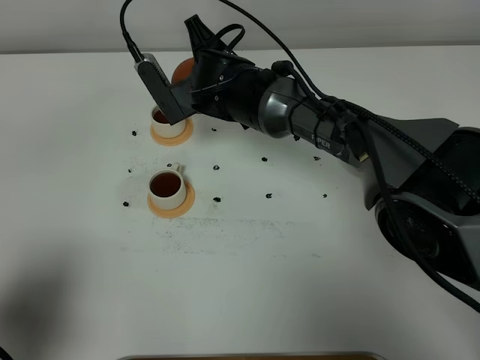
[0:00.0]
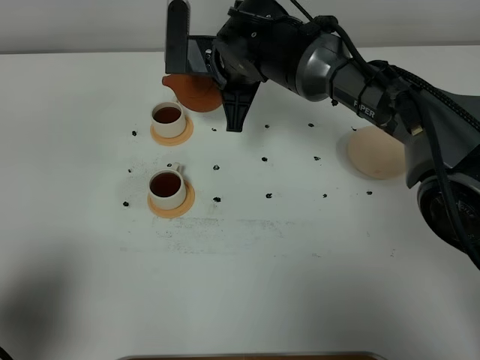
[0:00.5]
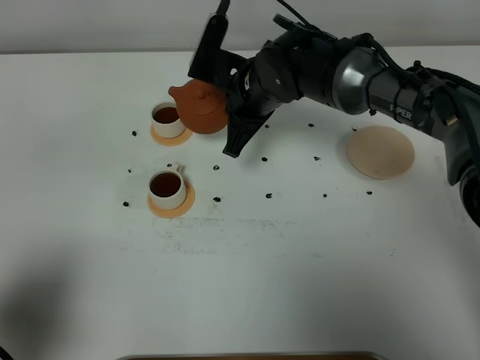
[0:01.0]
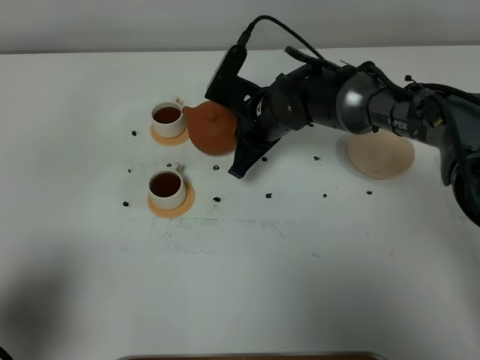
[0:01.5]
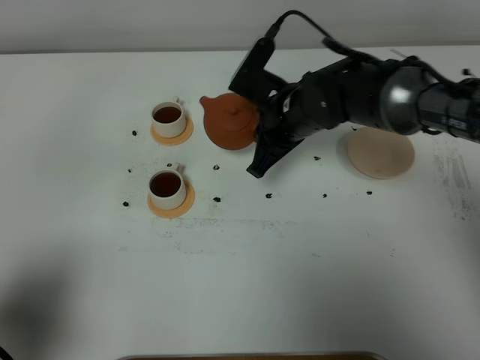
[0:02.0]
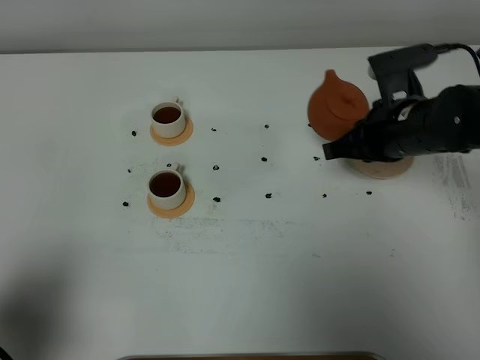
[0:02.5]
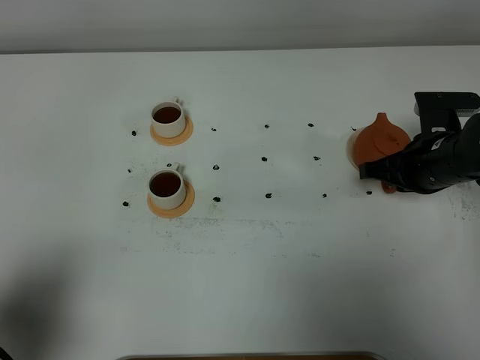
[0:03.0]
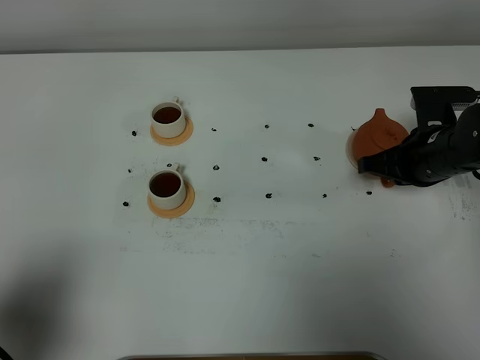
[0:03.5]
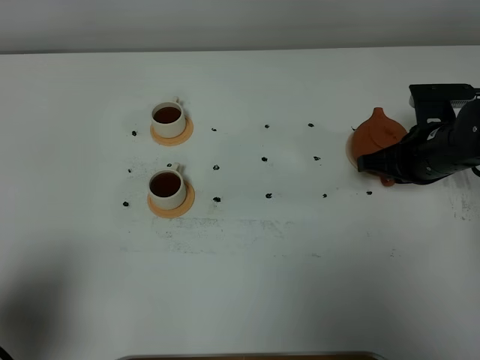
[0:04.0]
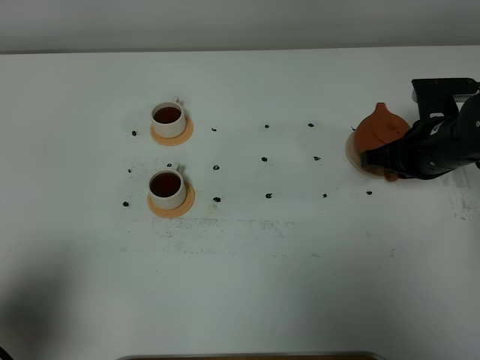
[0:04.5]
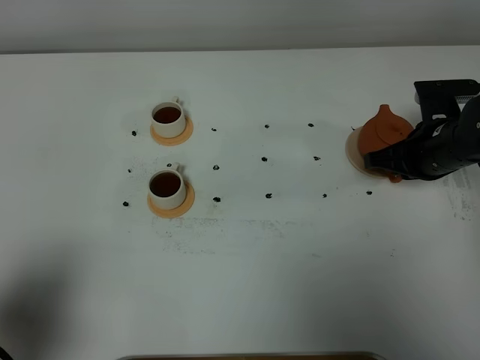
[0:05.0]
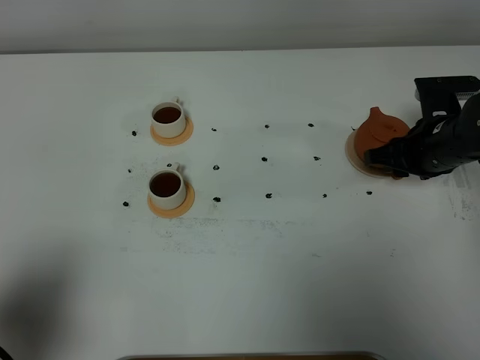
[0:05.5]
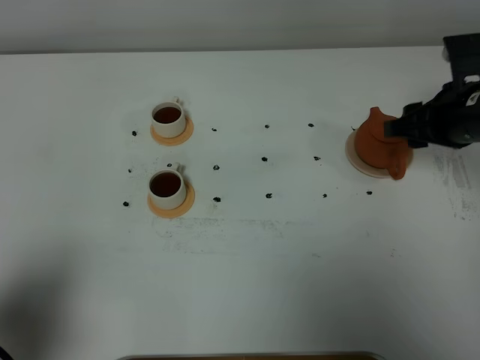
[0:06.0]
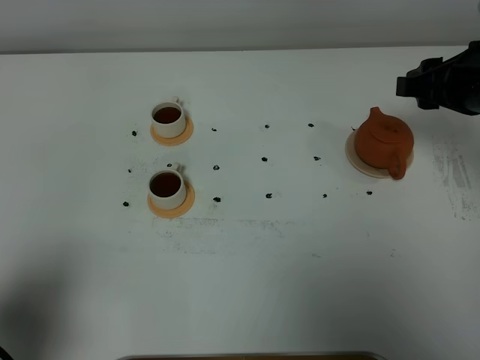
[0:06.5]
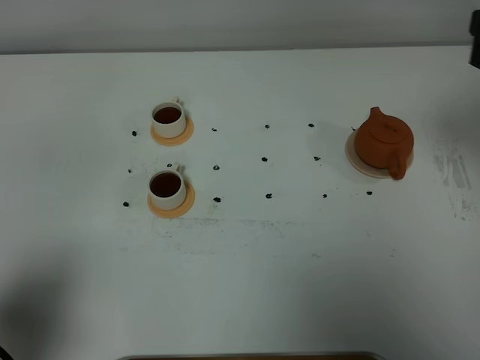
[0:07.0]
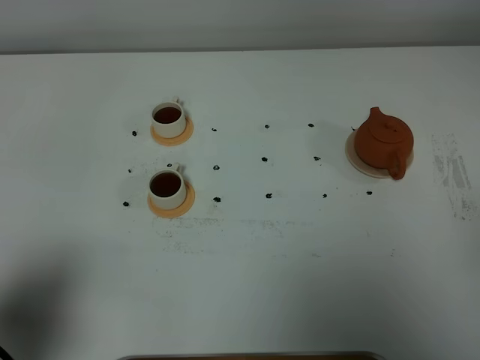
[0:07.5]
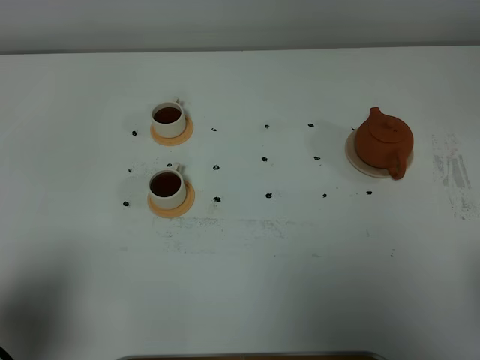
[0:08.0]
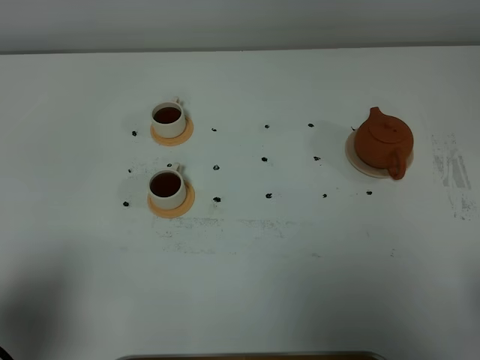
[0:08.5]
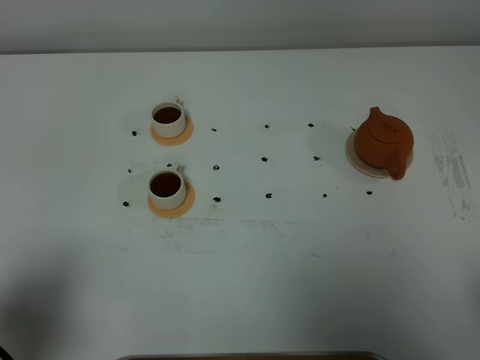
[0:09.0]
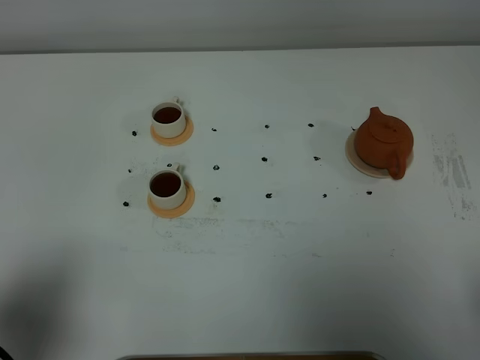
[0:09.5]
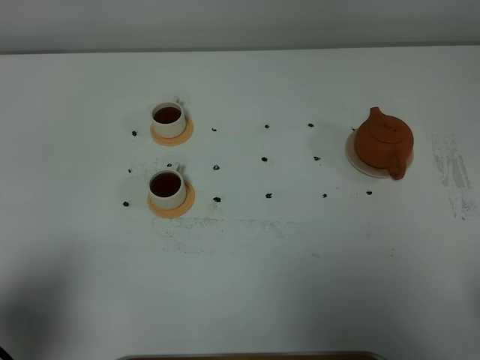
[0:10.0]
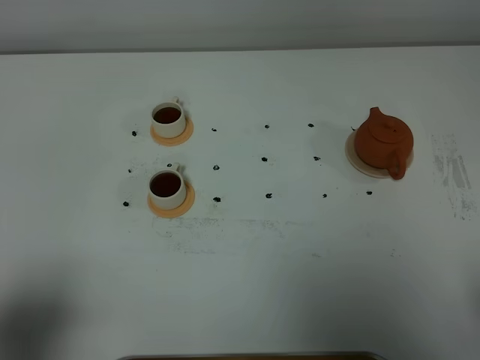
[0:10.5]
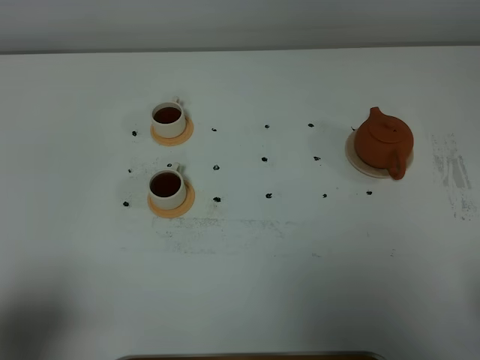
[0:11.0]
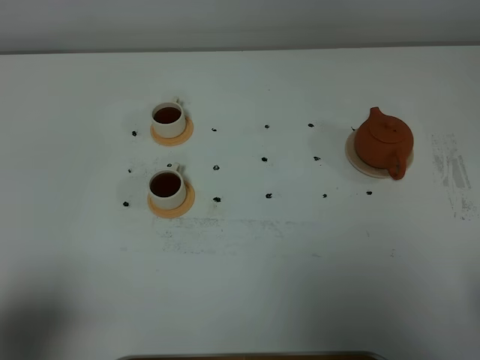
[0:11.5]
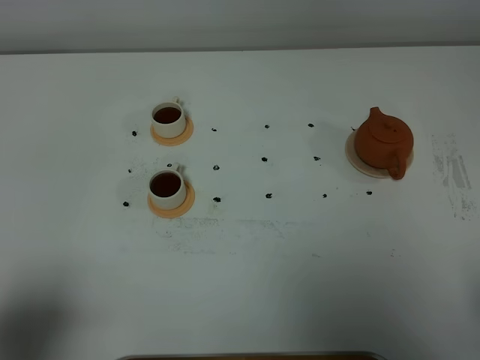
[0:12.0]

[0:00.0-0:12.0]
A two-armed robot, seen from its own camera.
Task of the whole recording: grasp the brown teapot and pour the tea into the two white teacups one by one, put the brown teapot back in its original place.
0:00.0 to 0:02.0: The right gripper shifts some 10 cm to the right and backward.
0:02.0 to 0:04.0: The right gripper heads to the right, covering about 15 cm.
0:04.0 to 0:06.0: The right gripper goes roughly 10 cm upward, and opens.
0:06.0 to 0:08.0: The right gripper is displaced backward by approximately 30 cm.

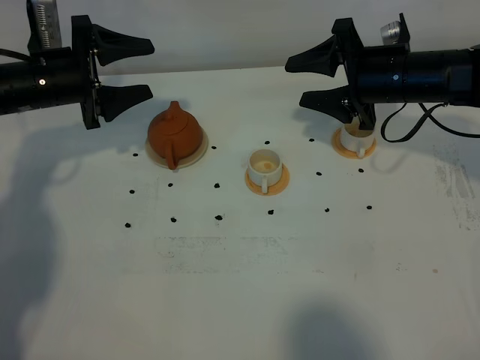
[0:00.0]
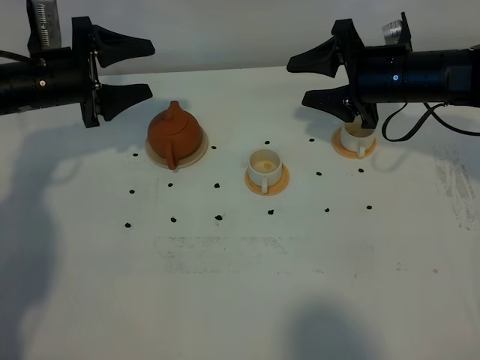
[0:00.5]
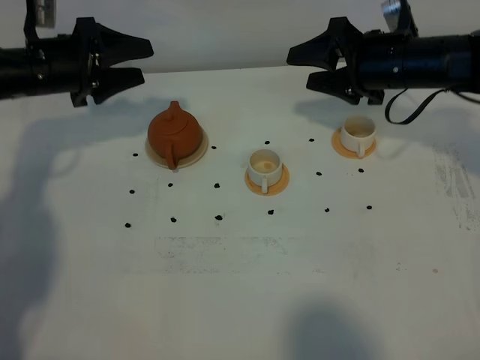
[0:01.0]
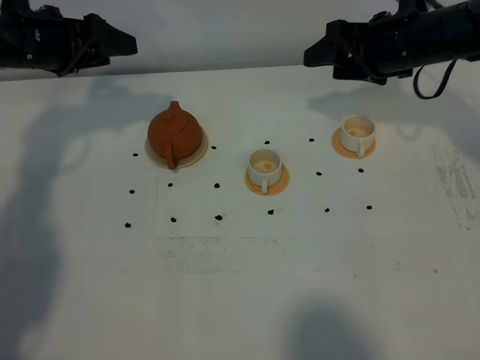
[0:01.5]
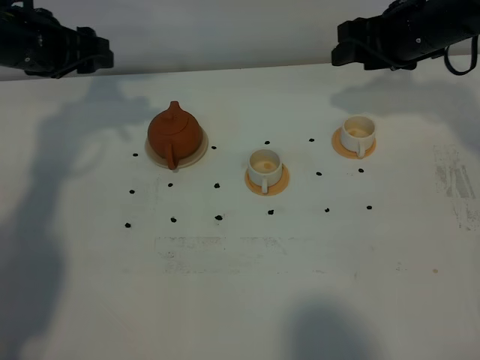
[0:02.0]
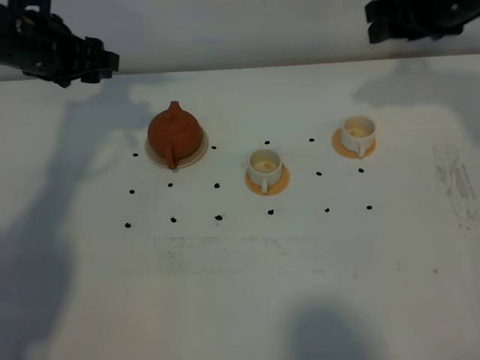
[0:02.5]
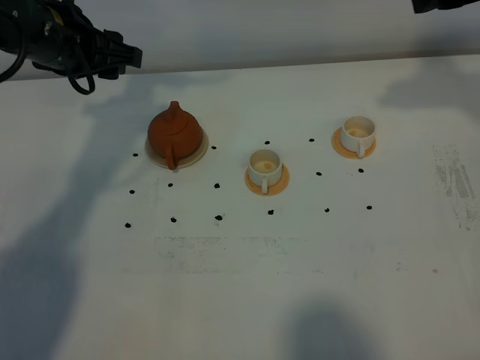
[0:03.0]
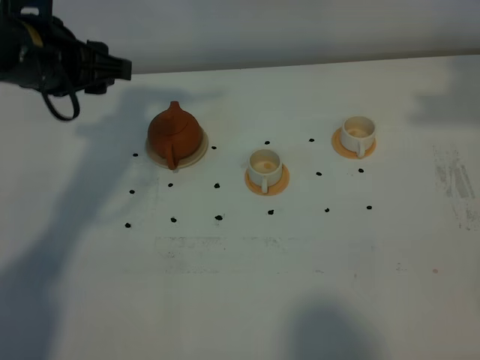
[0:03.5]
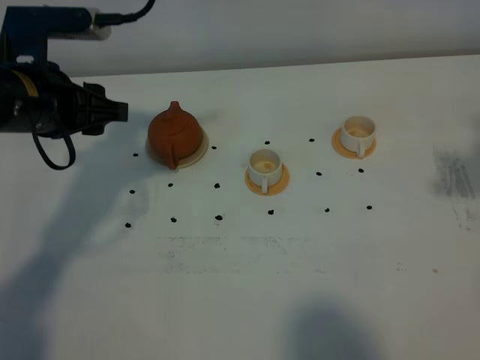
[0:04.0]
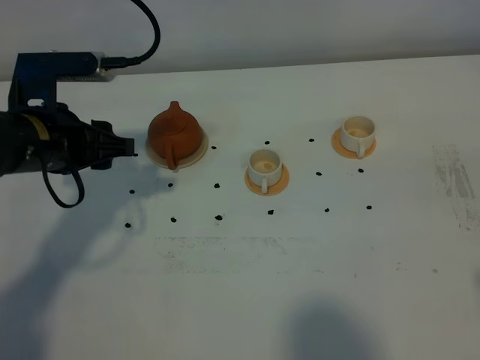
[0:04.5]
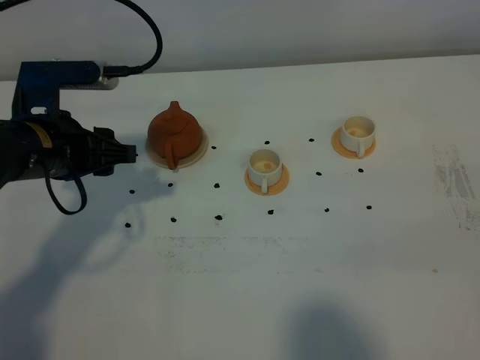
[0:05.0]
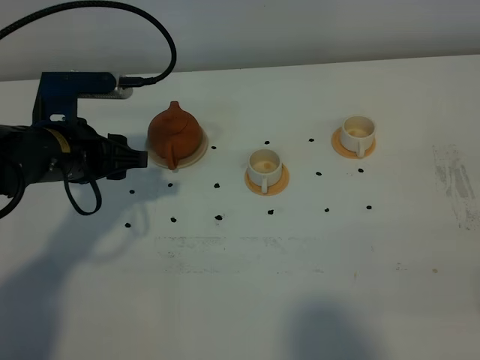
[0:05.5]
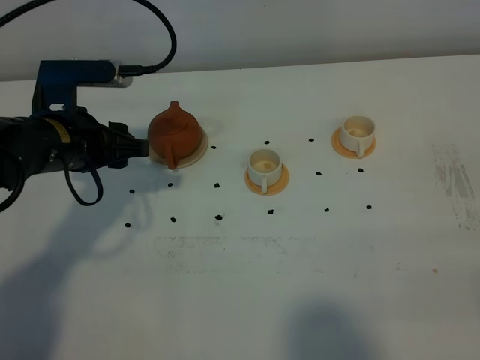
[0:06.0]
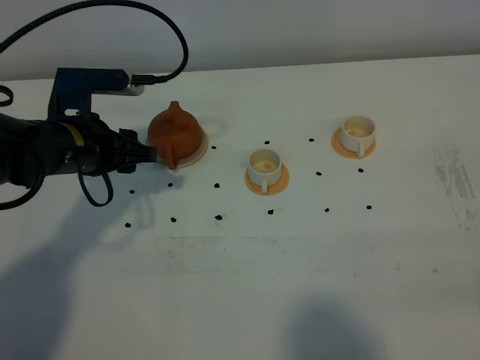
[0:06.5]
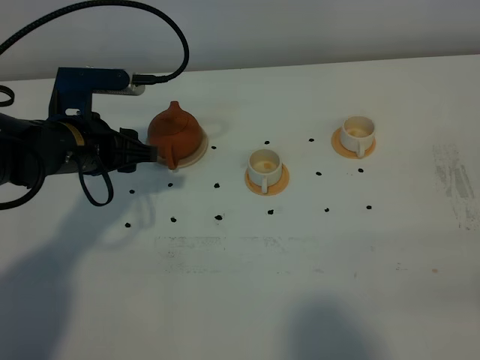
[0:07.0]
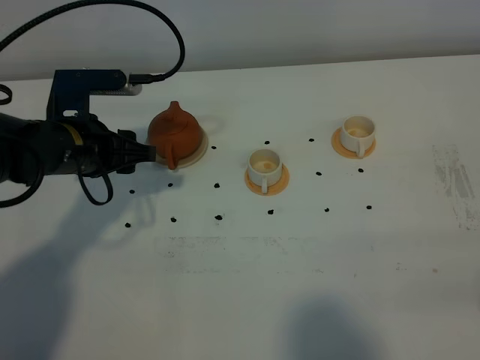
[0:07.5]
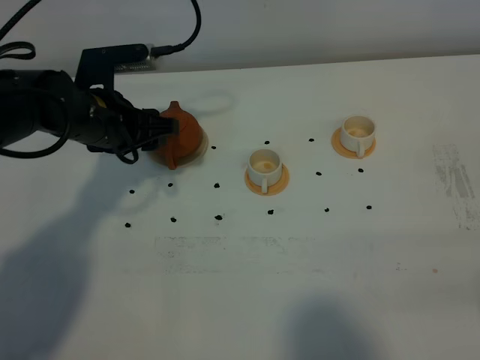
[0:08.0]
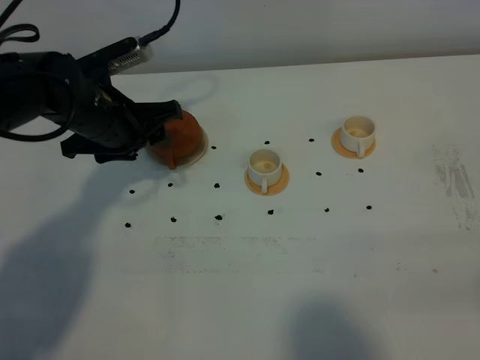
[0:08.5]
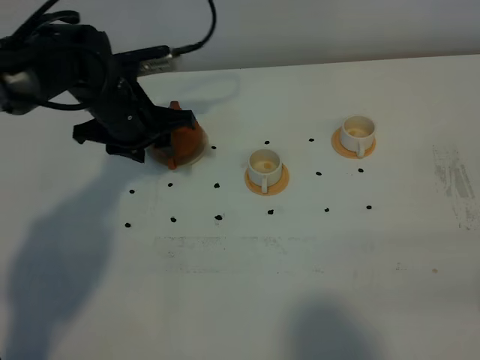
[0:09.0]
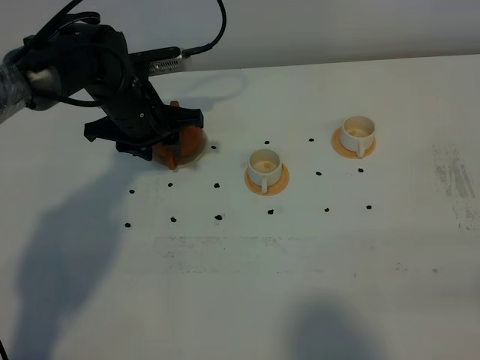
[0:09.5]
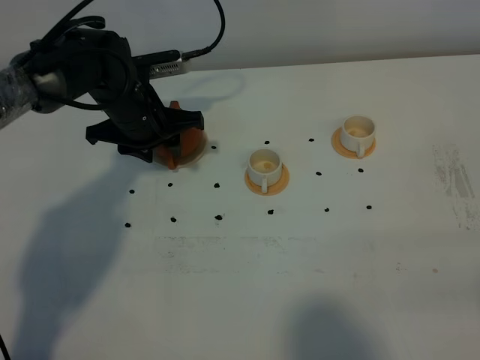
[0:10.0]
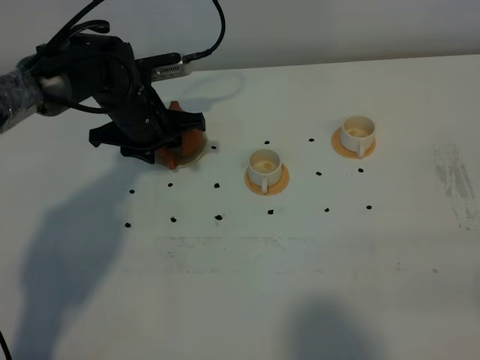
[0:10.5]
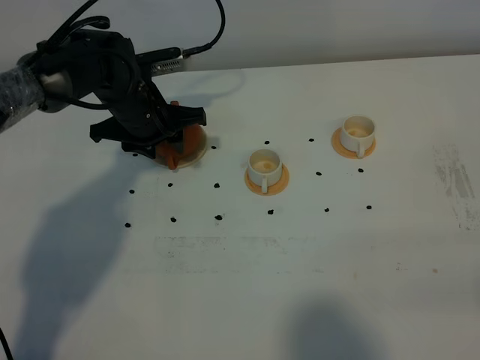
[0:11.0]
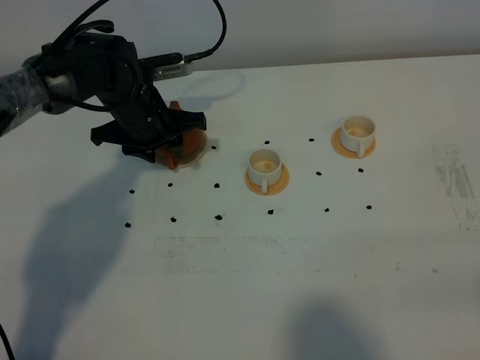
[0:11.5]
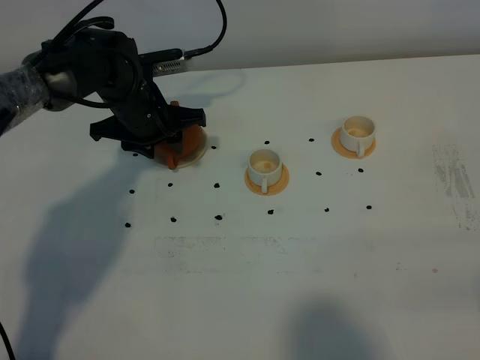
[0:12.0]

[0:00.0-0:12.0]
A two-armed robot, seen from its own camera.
Task of the whole recording: grasp the brown teapot and pour the tea into the two white teacups one by one, put the brown teapot back in its original place.
0:00.0 to 0:02.0: The right gripper moves some 5 cm; the left gripper moves upward, some 5 cm.
0:02.0 to 0:04.0: The left gripper heads backward and to the right, covering approximately 15 cm; the right gripper moves backward and upward, about 30 cm.
0:04.0 to 0:06.0: The left gripper shifts about 5 cm downward; the right gripper shifts about 25 cm backward and downward.
0:06.0 to 0:08.0: The left gripper heads forward, covering some 5 cm.
0:08.0 to 0:10.0: The left gripper shifts some 5 cm forward.
0:10.0 to 0:12.0: Neither gripper changes place.

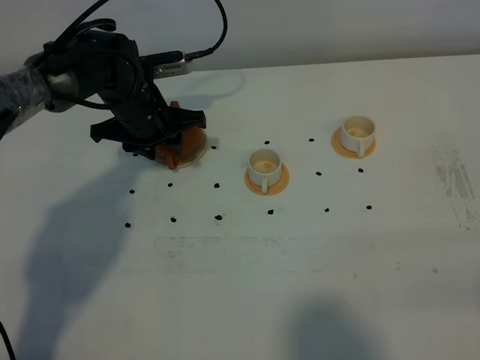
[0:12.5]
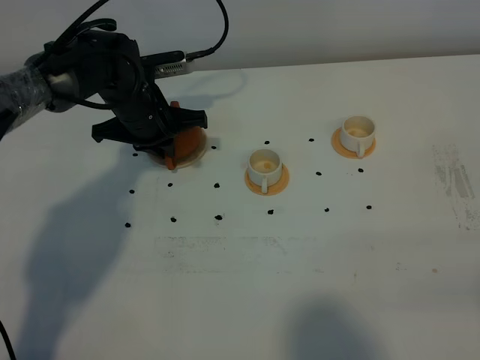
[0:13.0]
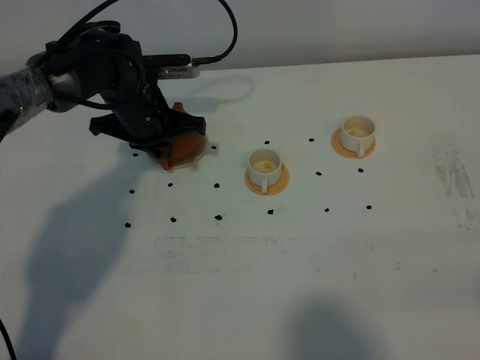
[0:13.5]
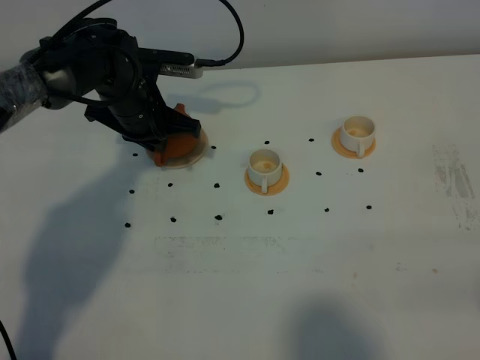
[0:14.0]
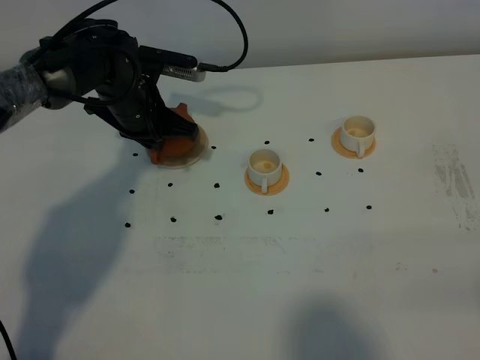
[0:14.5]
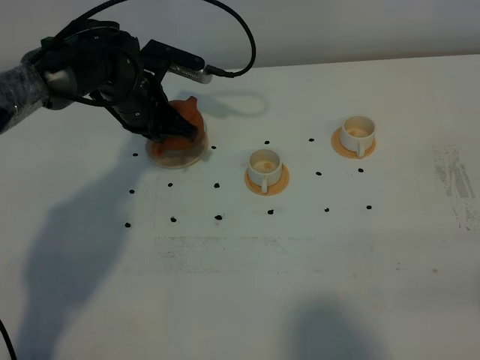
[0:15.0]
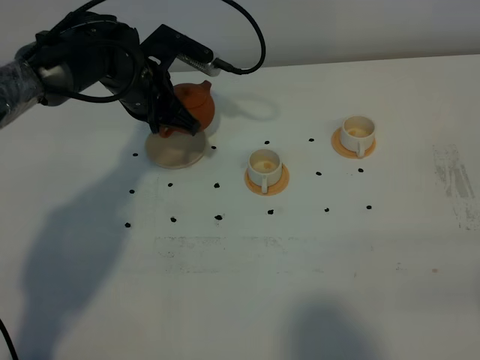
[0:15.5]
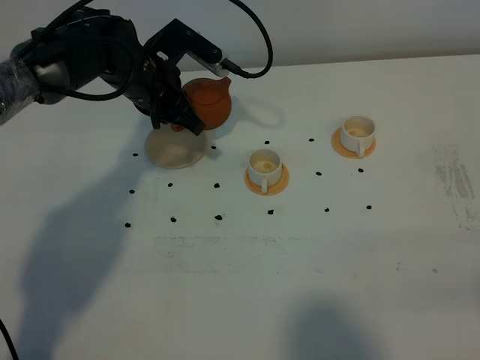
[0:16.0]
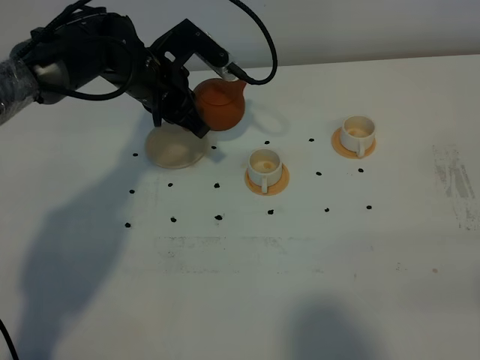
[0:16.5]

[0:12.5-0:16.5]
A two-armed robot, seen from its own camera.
Task of the whole recording: grasp the brown teapot and pour the tea into the two white teacups one by one, put the brown teapot back in its original place.
Step, 0:12.5 to 0:15.0: Pick up the teapot with the left gripper.
0:12.5 to 0:14.5: The left gripper closes up.
